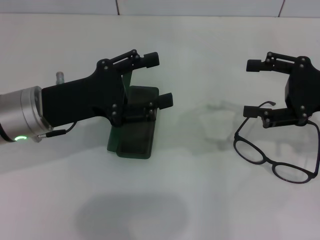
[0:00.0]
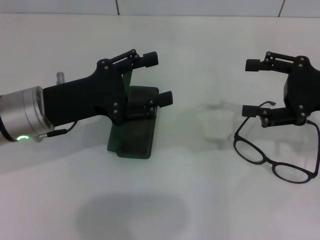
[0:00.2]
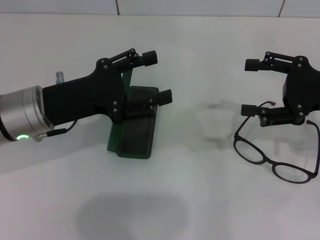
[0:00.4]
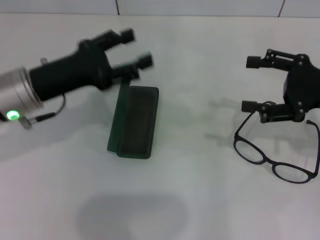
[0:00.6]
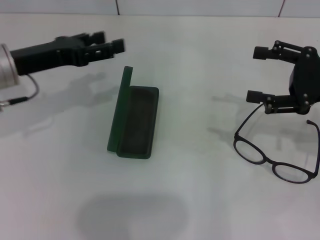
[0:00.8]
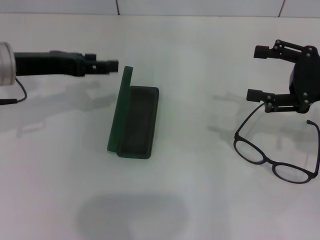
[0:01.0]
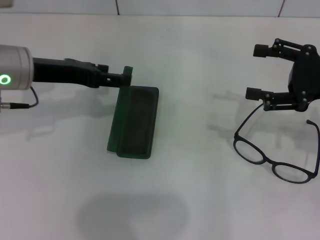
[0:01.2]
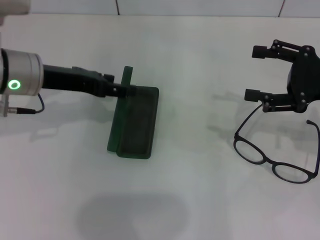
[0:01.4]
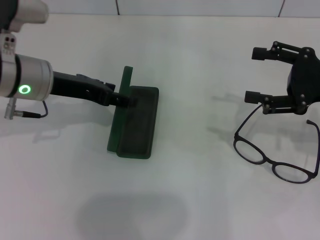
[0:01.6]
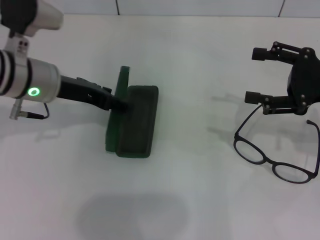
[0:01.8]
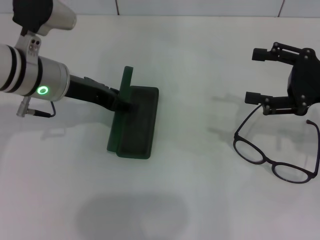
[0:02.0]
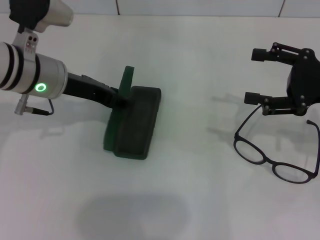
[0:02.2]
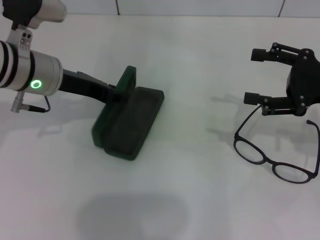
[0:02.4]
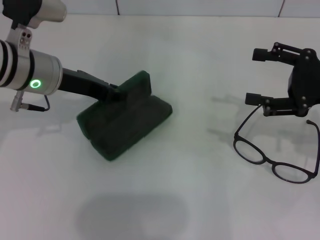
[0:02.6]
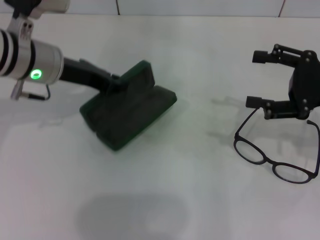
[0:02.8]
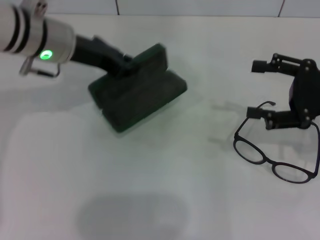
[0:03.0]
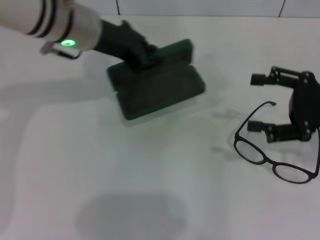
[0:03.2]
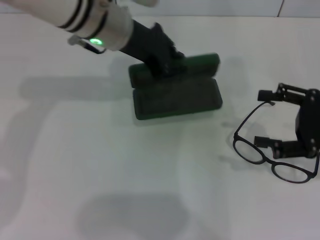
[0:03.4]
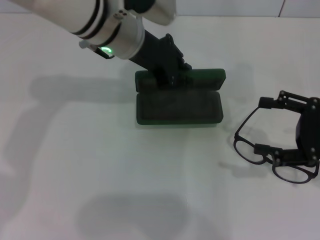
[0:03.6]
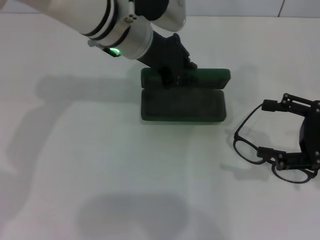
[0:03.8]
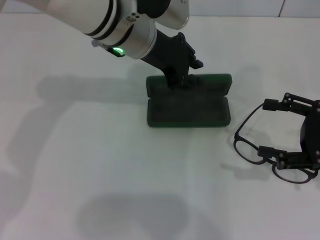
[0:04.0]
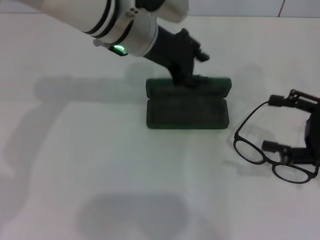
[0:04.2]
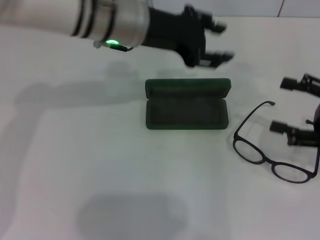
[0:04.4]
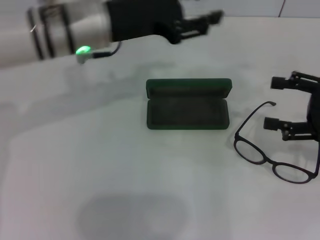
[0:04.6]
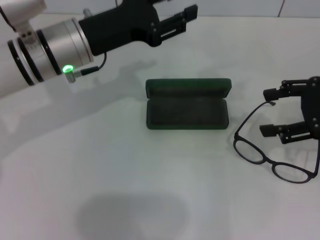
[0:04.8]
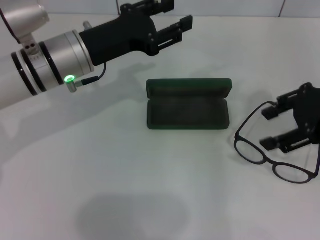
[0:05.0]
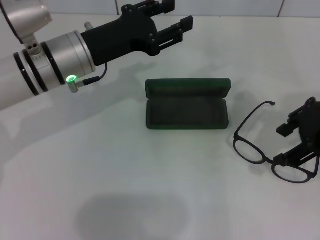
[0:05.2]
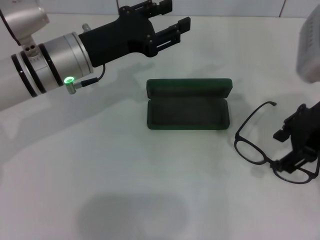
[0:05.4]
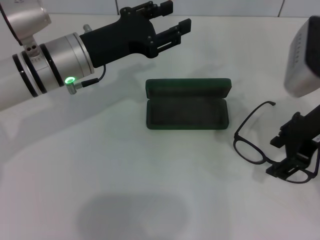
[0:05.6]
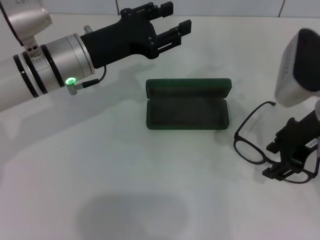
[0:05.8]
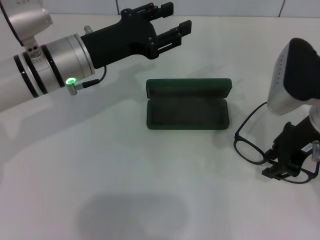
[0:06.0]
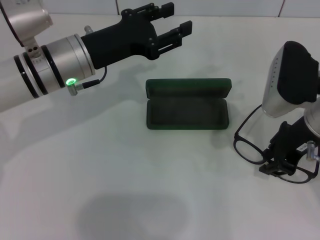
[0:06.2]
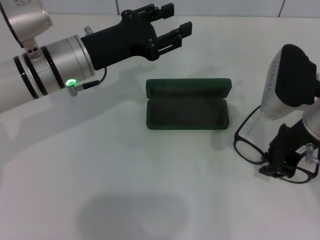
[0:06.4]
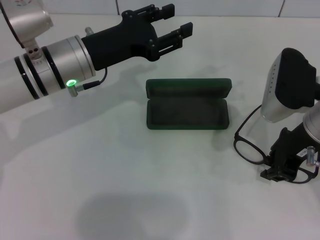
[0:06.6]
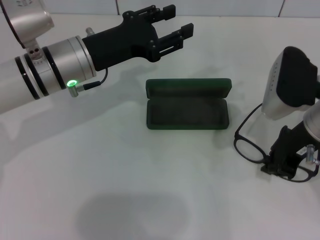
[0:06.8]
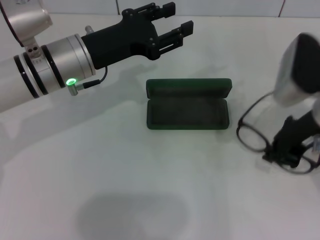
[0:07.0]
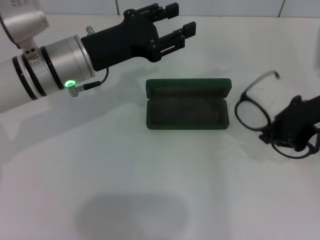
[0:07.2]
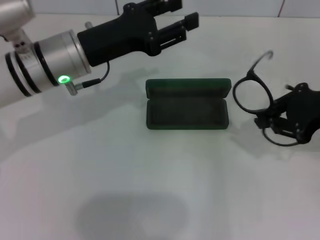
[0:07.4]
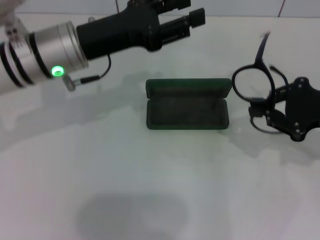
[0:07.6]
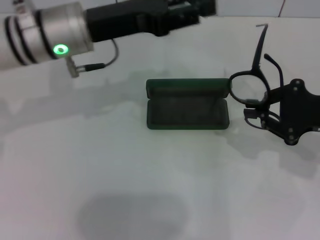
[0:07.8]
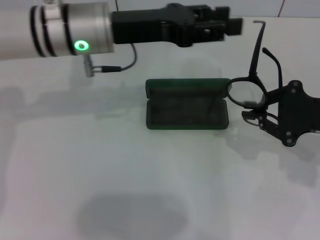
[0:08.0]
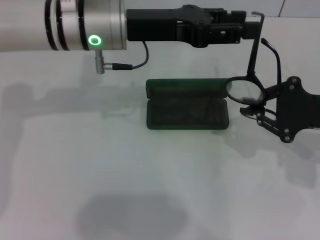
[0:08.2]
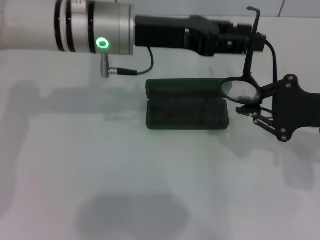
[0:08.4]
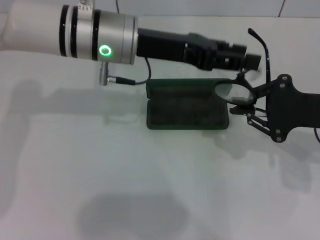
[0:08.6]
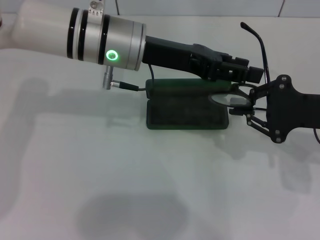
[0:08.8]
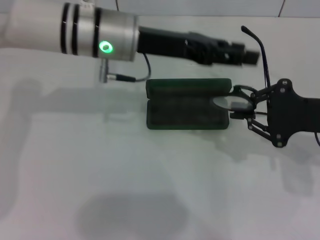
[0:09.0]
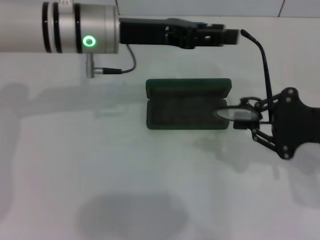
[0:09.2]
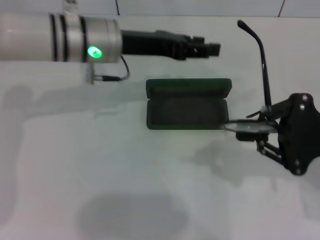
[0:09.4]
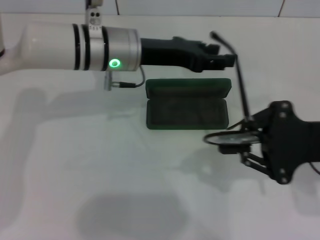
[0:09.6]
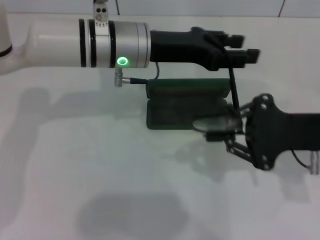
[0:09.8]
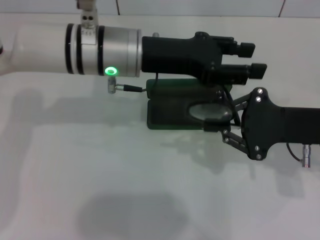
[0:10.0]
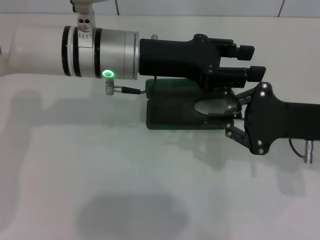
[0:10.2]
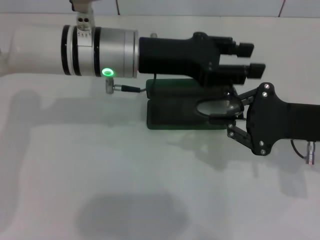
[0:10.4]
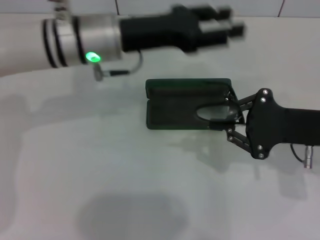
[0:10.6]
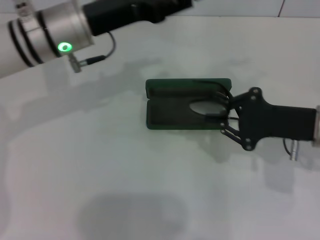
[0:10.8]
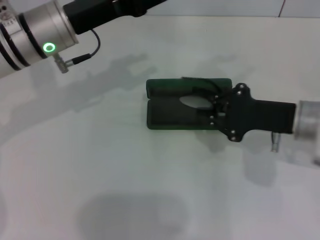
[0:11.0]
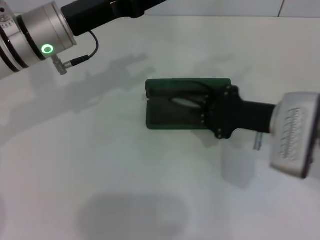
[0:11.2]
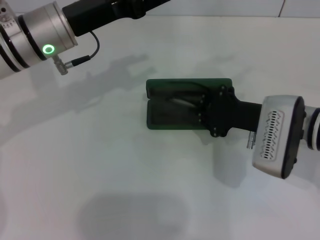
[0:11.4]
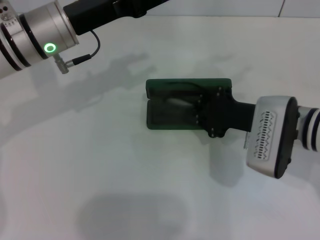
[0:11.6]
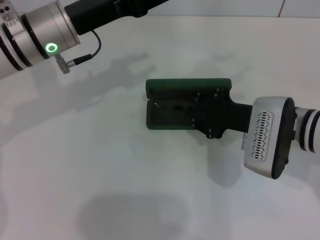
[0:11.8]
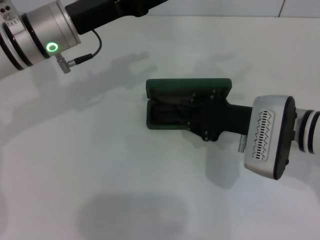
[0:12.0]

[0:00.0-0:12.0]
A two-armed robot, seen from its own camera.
Step, 0:00.0 to 0:02.4: Grab the glasses case with your left hand.
Step, 0:02.6 to 0:03.8: Place the glasses case in the center of the table with your left hand.
Step, 0:04.0 to 0:06.6: Grab the eyeglass frame with your right hand.
Step, 0:06.8 to 0:10.2: Fold the frame with your left hand.
0:00.0 to 0:01.6: The left gripper shifts some 5 cm forward.
0:01.6 to 0:03.0: The left gripper changes place by approximately 5 cm, and closes up.
0:03.0 to 0:04.4: The right gripper ends up roughly 5 cm from where it was, while the left gripper heads to the right, covering roughly 10 cm, and opens up.
0:04.4 to 0:06.0: The right gripper moves to the left, about 15 cm, and closes; the left gripper travels to the left and downward by roughly 10 cm.
0:06.0 to 0:07.6: The right gripper is displaced to the right by some 10 cm, and closes up.
0:07.6 to 0:09.0: The left gripper is displaced to the right by roughly 5 cm.
0:09.0 to 0:10.4: The grippers stay close to where they were, moving slightly.
0:10.4 to 0:12.0: Both grippers move to the left, roughly 10 cm.

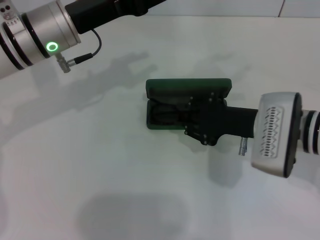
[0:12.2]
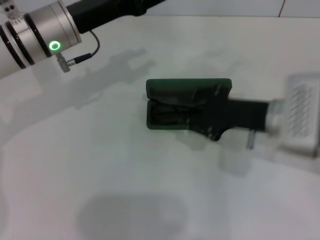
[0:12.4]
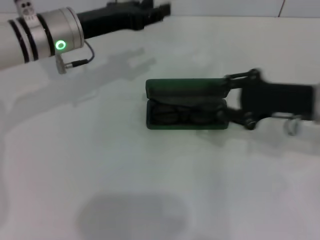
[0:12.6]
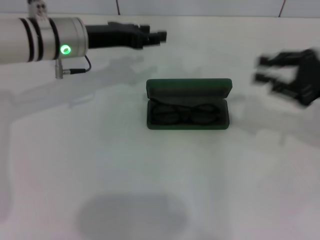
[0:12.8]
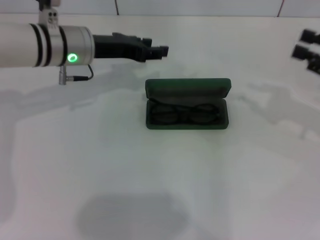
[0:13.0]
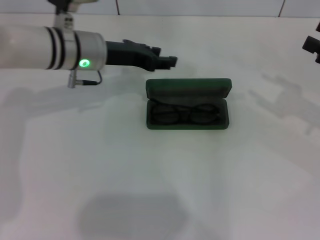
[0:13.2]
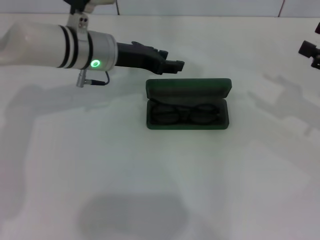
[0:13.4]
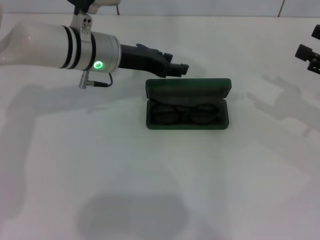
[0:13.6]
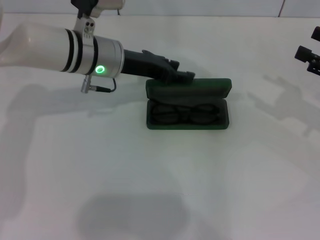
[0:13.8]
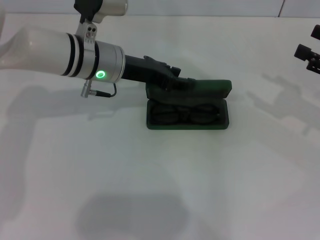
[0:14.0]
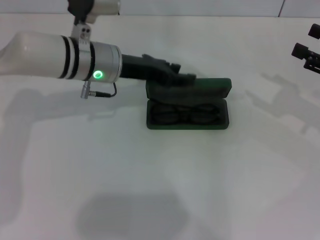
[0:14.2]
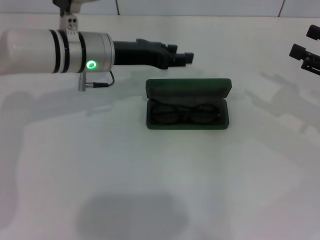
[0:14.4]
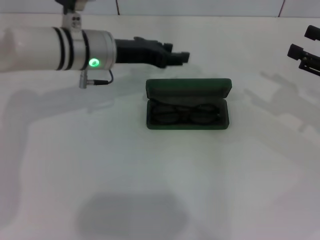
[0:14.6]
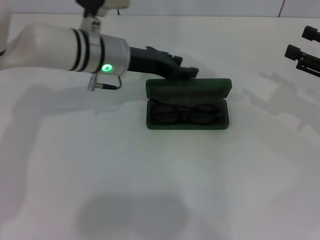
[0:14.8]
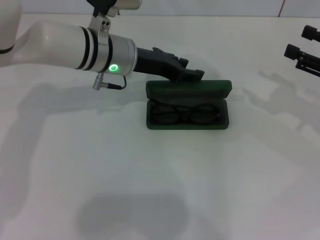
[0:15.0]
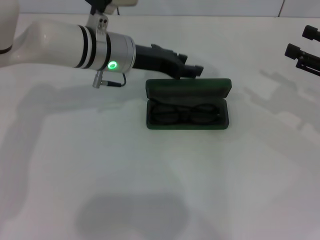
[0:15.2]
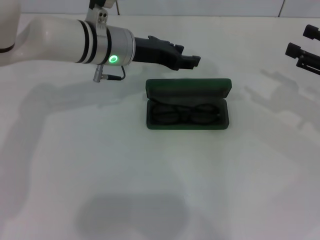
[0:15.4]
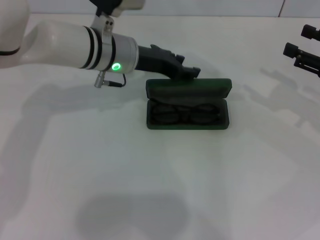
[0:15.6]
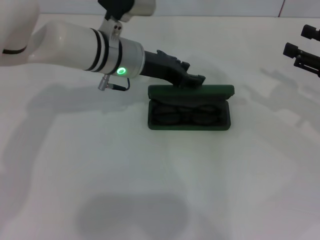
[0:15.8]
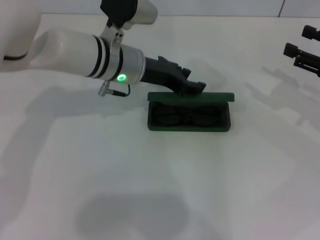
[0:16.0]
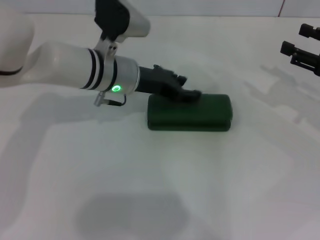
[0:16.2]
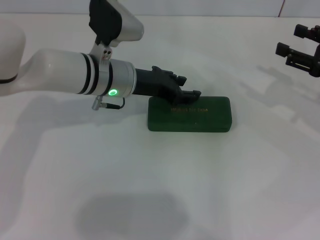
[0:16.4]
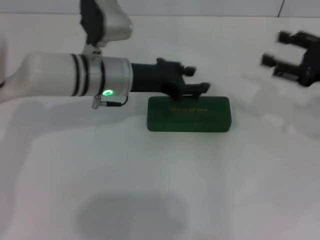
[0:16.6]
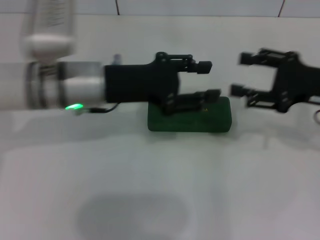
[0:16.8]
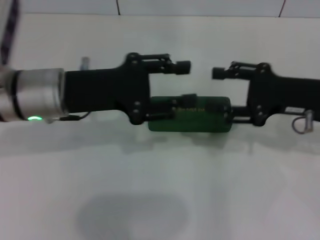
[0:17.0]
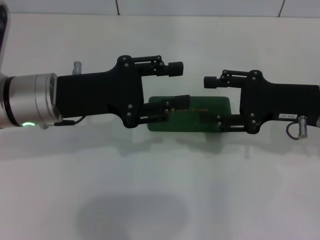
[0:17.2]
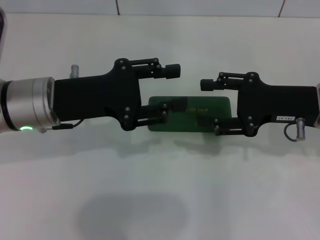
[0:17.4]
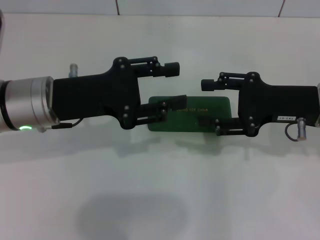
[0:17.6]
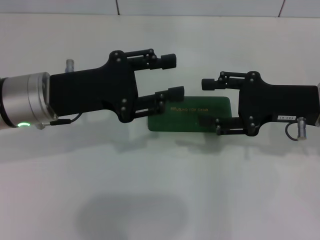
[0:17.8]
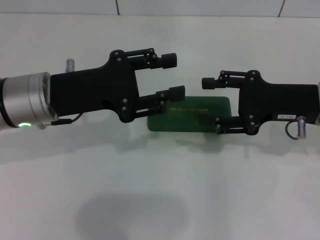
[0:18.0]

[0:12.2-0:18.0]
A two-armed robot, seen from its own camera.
Step, 0:12.2 to 0:16.2: Close the glasses case with your left hand.
0:12.2 to 0:13.6: The right gripper heads to the right, covering approximately 20 cm, and opens up. The left gripper changes place by about 5 cm.
0:13.6 to 0:16.6: The grippers stay close to where they were, moving slightly.
0:16.6 to 0:18.0: The left gripper is displaced to the left and backward by some 10 cm; the right gripper goes some 10 cm to the left.

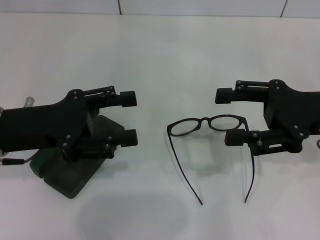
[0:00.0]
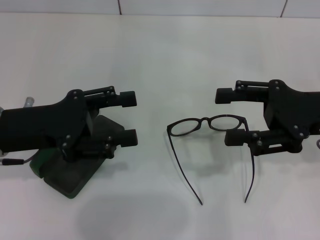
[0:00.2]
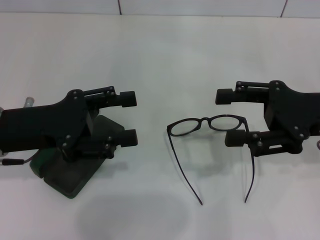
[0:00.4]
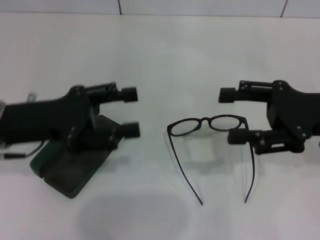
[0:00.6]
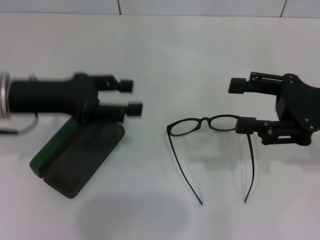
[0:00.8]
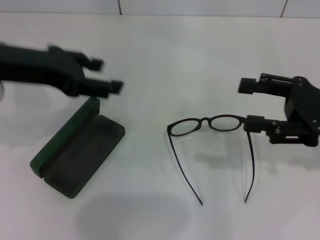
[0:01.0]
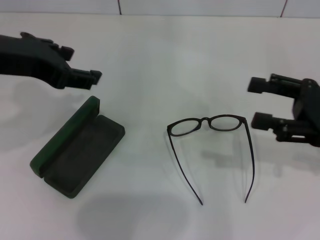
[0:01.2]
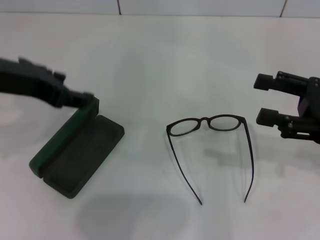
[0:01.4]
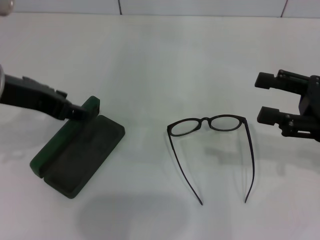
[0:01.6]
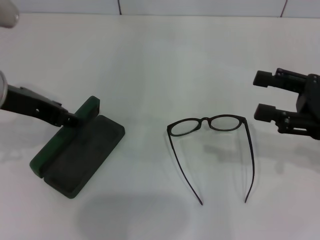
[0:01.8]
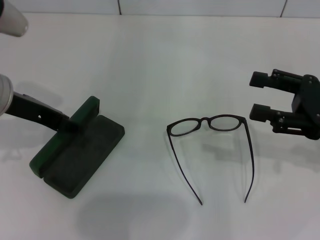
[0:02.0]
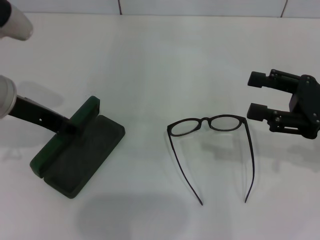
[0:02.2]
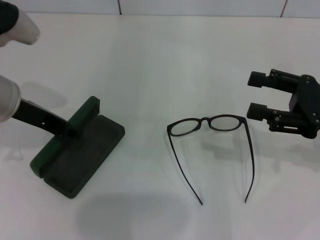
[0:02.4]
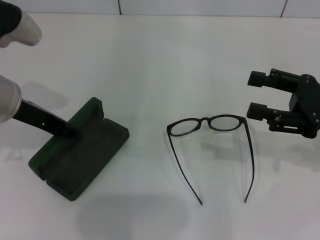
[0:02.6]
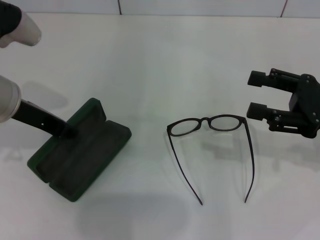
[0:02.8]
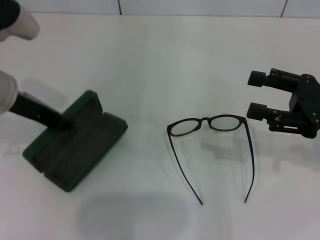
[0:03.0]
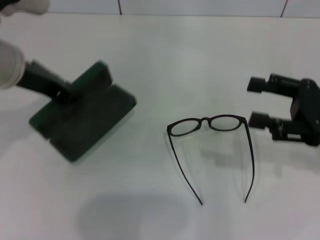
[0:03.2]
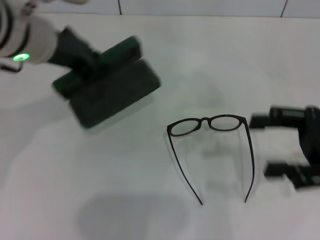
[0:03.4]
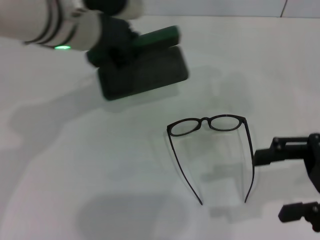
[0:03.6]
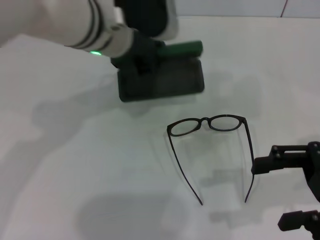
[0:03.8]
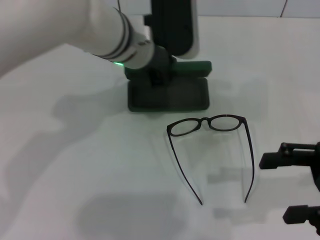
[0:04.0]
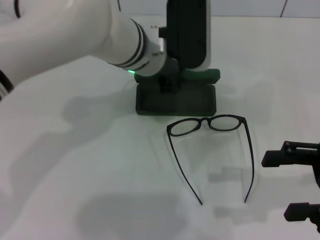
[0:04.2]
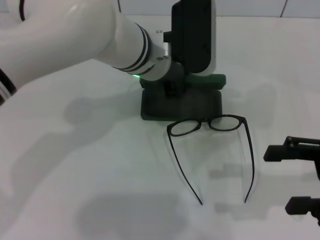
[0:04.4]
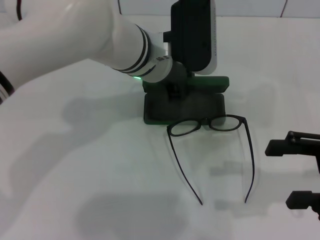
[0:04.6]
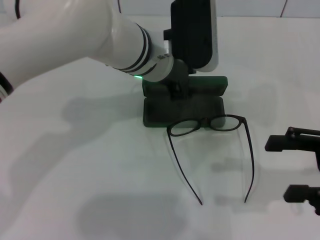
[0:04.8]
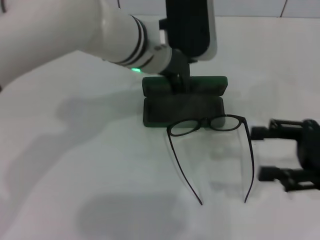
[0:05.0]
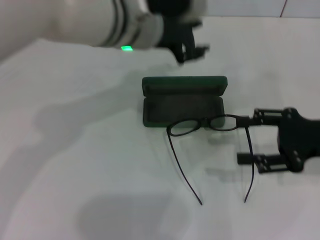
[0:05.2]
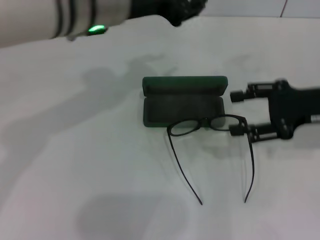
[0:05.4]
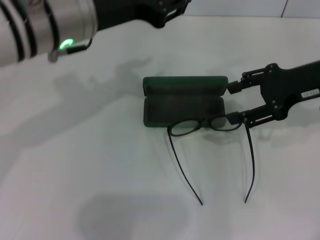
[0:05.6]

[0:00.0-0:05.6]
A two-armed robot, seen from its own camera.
Step, 0:00.0 to 0:02.4: Grab the glasses case with your left hand.
Step, 0:02.6 to 0:04.8: Place the glasses case in the center of the table with your left hand.
0:00.0 to 0:01.4: The left gripper is displaced upward by roughly 10 cm. The right gripper moves roughly 5 cm.
0:01.4 to 0:02.8: The left gripper travels downward by about 5 cm, and closes its fingers.
0:02.8 to 0:04.2: The right gripper travels backward by about 5 cm; the left gripper moves to the right, roughly 20 cm.
0:04.2 to 0:05.6: The right gripper heads forward and upward, covering about 15 cm, while the left gripper shifts about 10 cm to the left, upward and backward, and opens its fingers.
